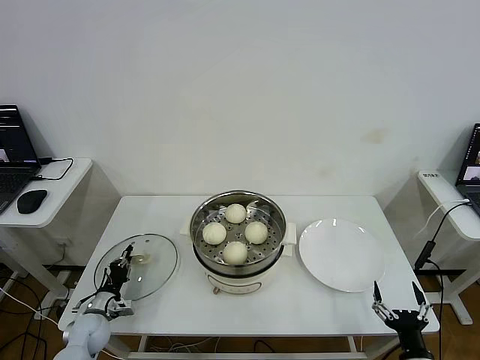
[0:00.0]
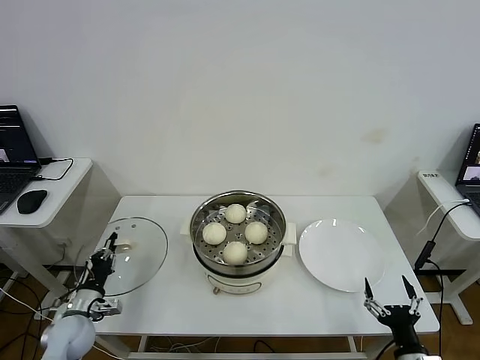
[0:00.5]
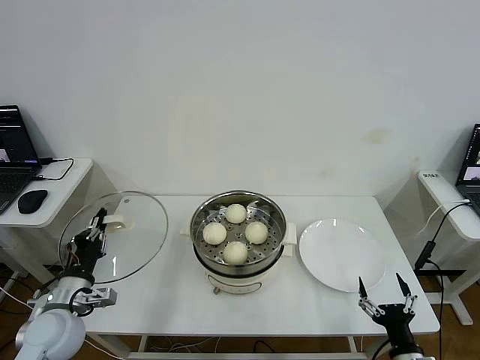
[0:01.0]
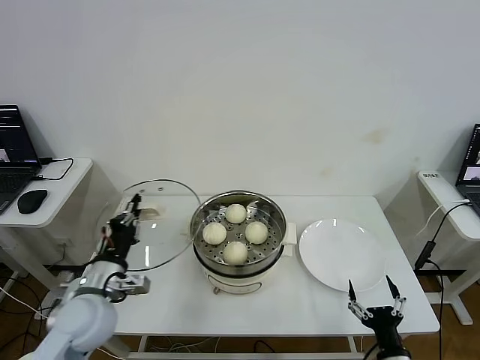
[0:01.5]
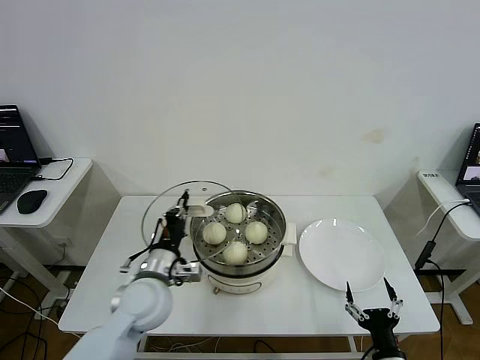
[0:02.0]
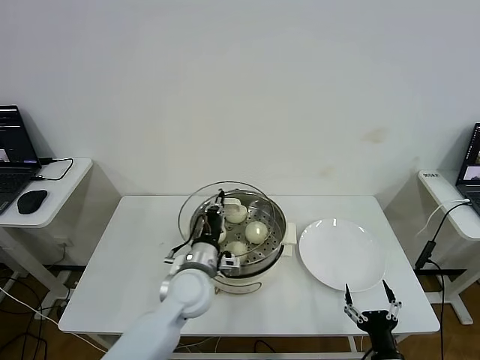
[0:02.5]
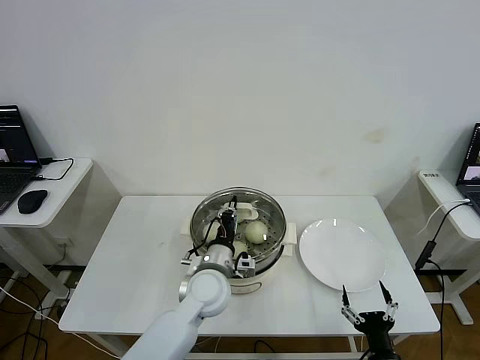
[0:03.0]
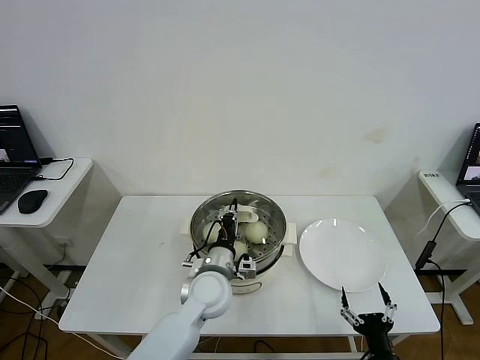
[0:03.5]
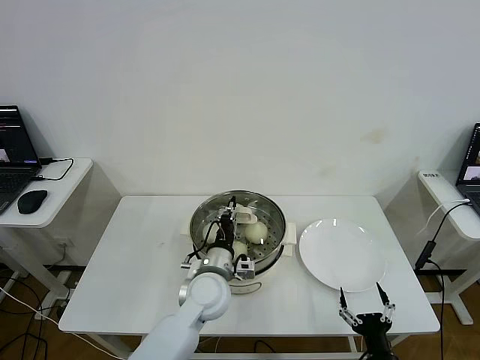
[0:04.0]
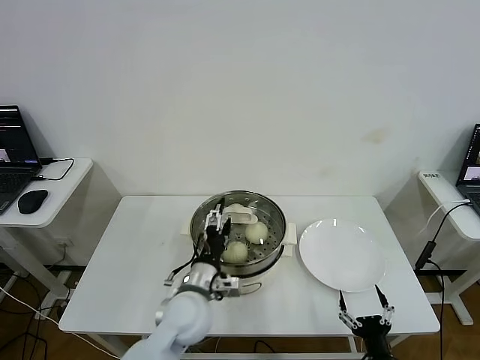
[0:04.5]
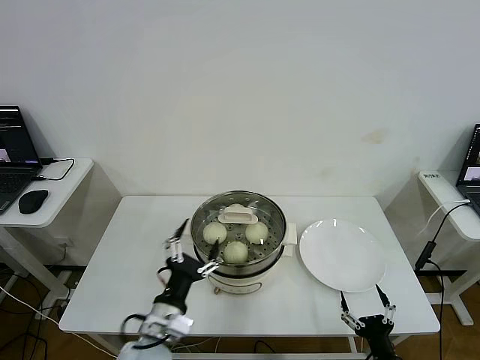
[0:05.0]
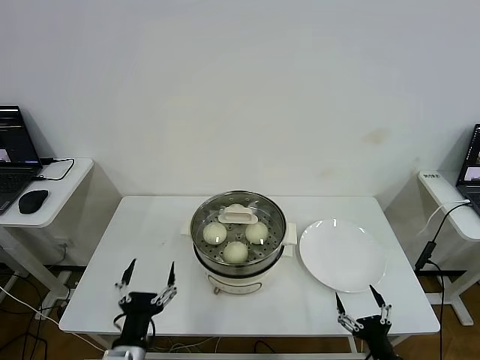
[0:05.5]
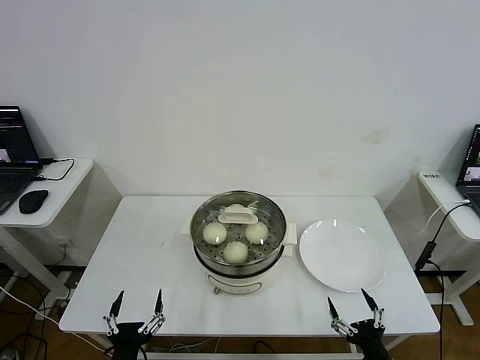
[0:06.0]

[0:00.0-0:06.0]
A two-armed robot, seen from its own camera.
Step, 0:00.0 to 0:04.5: Place the pot lid on the steamer with left gripper.
0:00.0 to 0:02.0: The left gripper is displaced upward and to the right by approximately 30 cm.
0:02.0 to 0:04.0: The left gripper heads to the right, covering some 10 cm.
0:04.0 to 0:06.0: The left gripper goes about 30 cm backward and to the left, and opens its fingers.

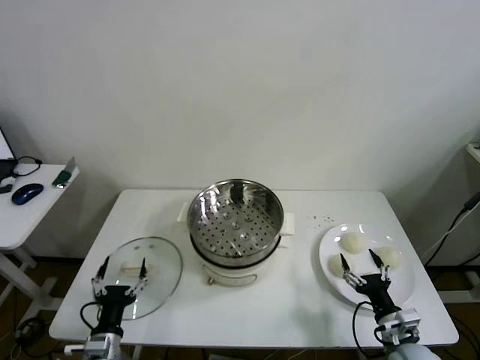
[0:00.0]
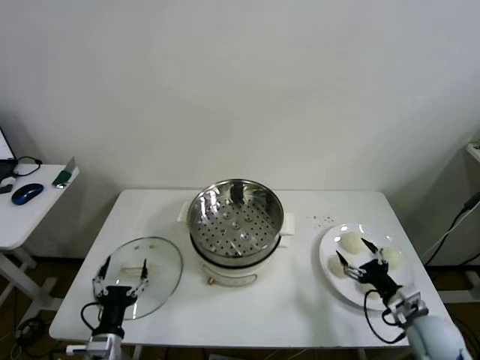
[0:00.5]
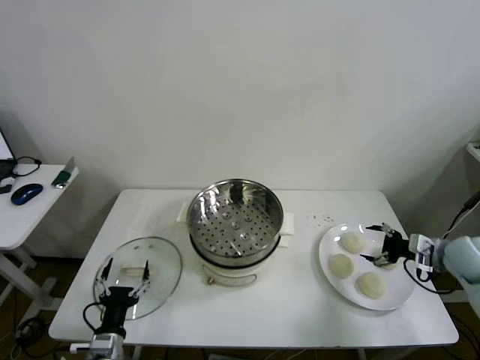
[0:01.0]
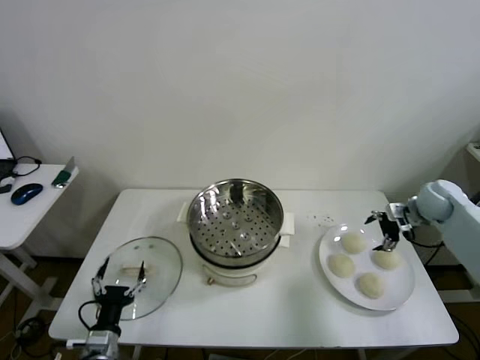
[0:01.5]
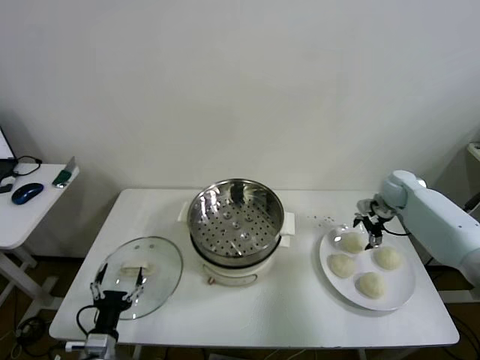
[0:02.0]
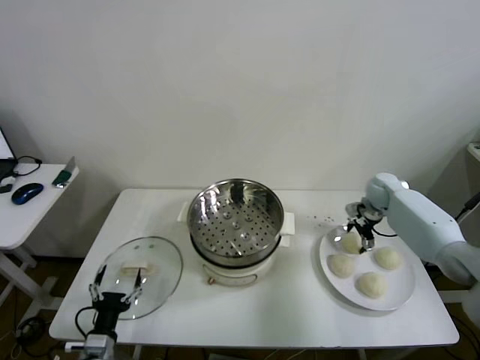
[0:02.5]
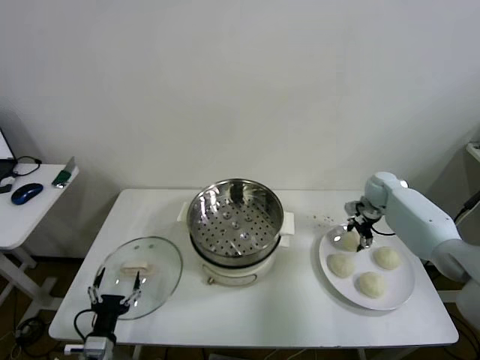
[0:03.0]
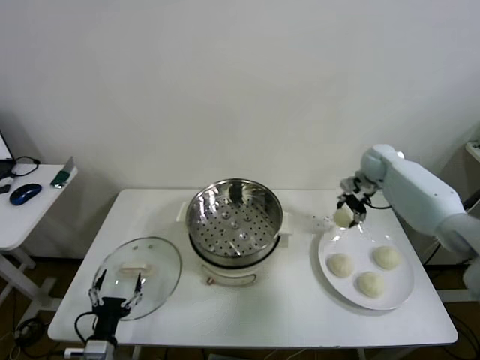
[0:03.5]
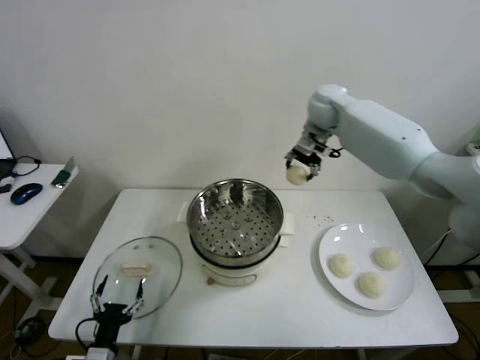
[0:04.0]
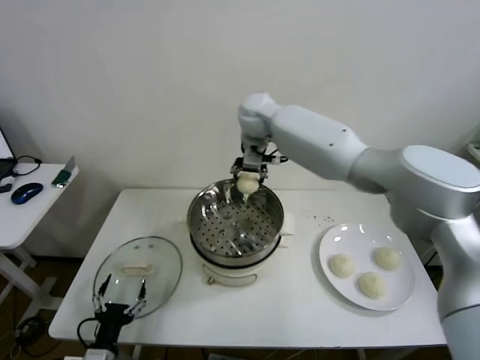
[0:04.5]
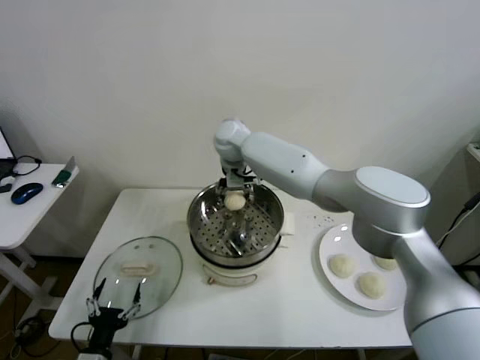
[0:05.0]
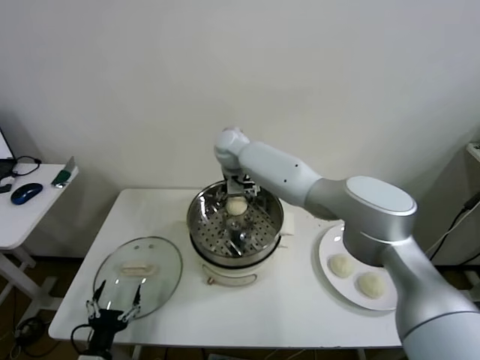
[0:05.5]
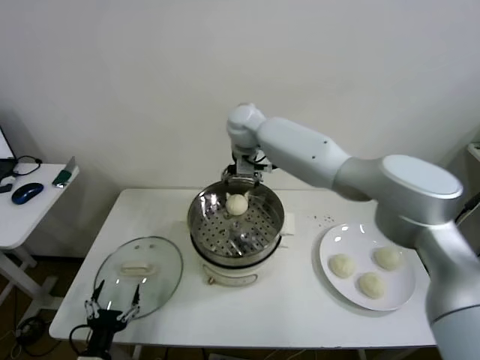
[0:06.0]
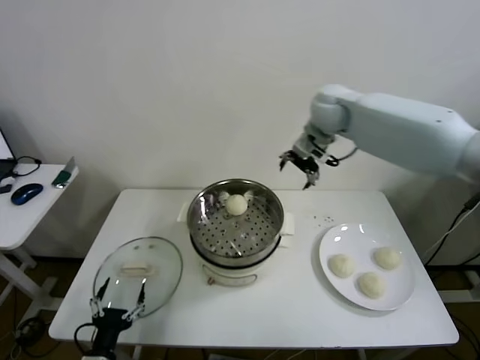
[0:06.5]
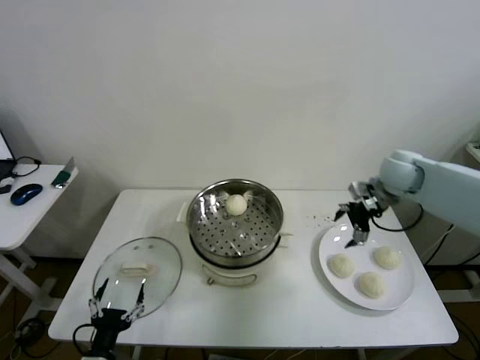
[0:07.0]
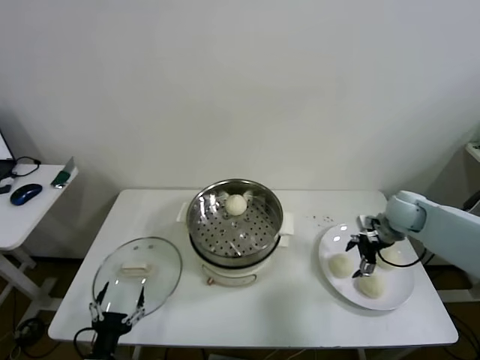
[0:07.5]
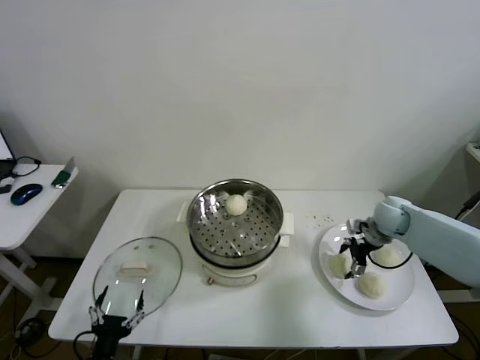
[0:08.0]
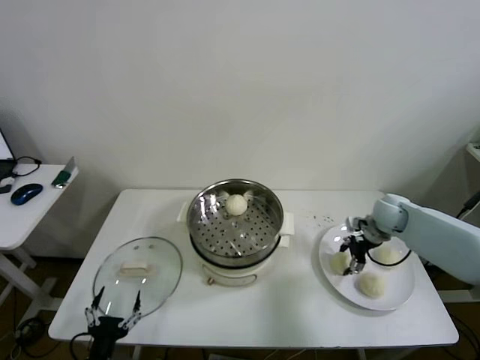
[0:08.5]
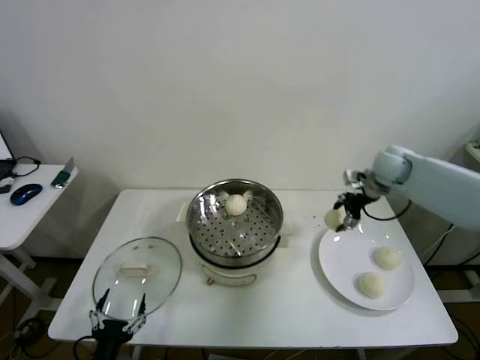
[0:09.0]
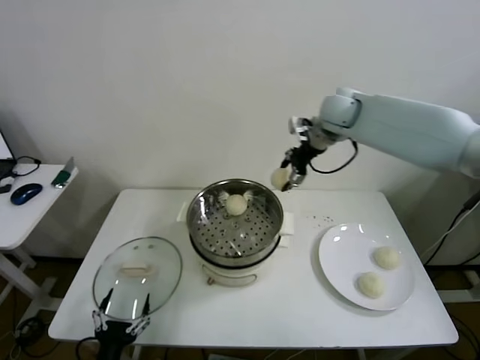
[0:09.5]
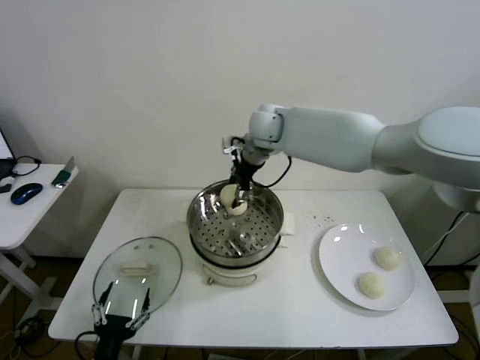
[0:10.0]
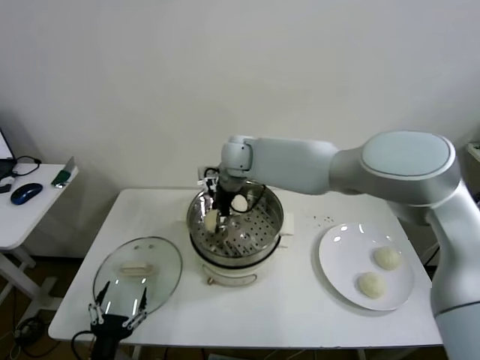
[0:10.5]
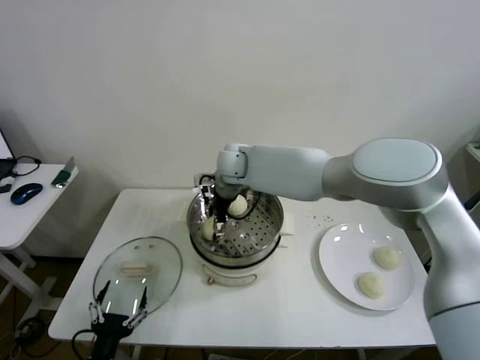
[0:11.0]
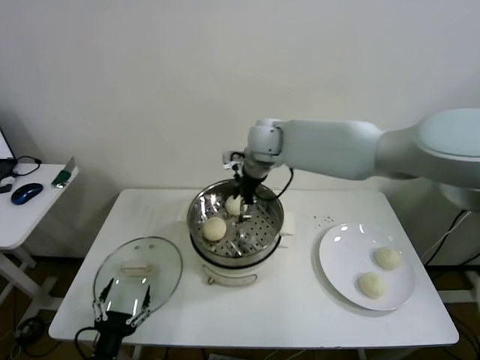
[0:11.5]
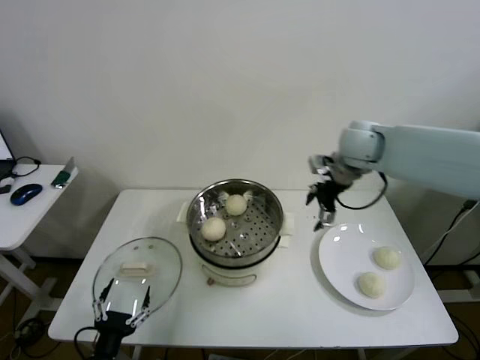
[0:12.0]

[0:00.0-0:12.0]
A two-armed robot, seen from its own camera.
Step, 0:00.0 to 0:02.5: Grasp the baozi in the plate with right gripper.
Step, 0:03.5 to 0:05.0: Place the baozi on the steamer with right gripper.
Step, 0:05.5 to 0:08.0: Grasp the baozi in the plate with right gripper.
Step, 0:08.5 to 0:10.5: Place the baozi on the steamer with right gripper.
0:02.0 to 0:04.0: The right gripper moves to the left and upward, about 35 cm, and closes.
0:04.0 to 0:06.0: The right gripper travels to the left by about 10 cm, and opens up.
0:06.0 to 0:08.0: The right gripper goes some 40 cm to the right and downward.
0:08.0 to 0:10.0: The right gripper travels to the left and upward by about 40 cm, and closes.
0:10.0 to 0:12.0: The right gripper heads to the right, covering some 25 cm, and opens.

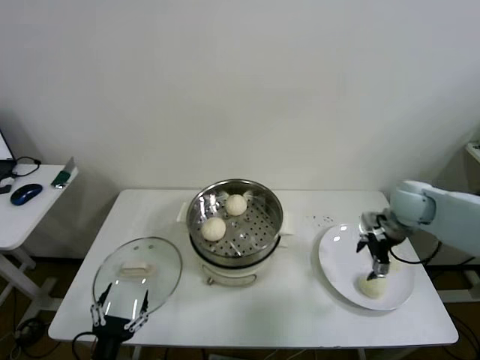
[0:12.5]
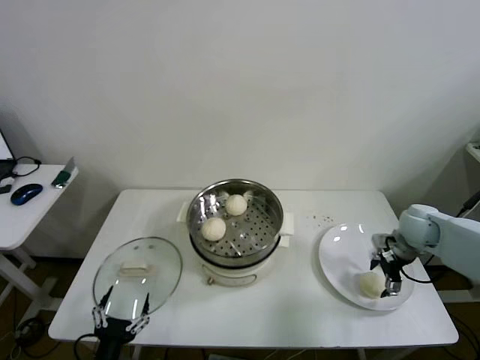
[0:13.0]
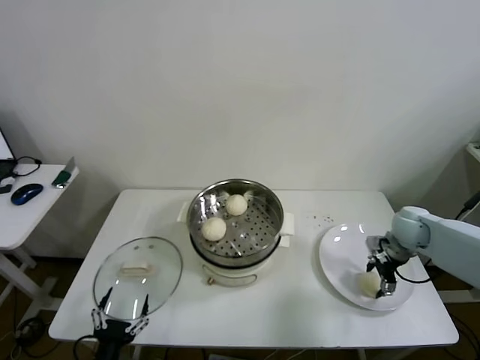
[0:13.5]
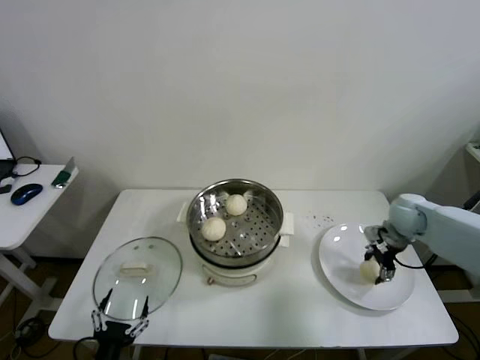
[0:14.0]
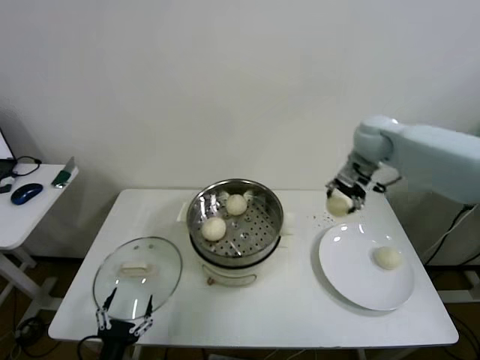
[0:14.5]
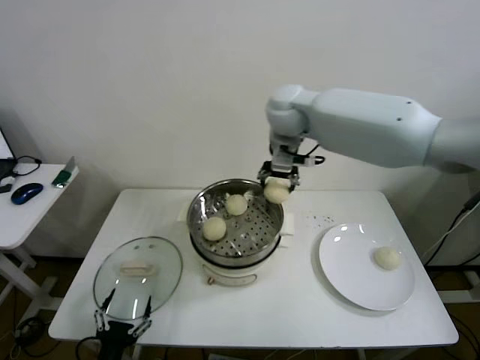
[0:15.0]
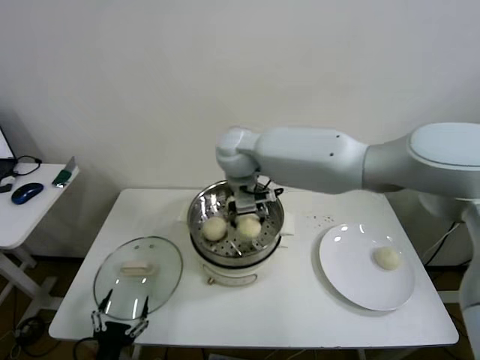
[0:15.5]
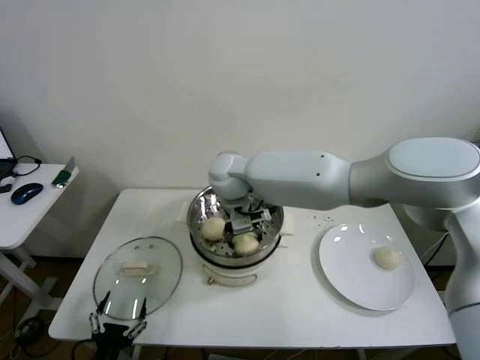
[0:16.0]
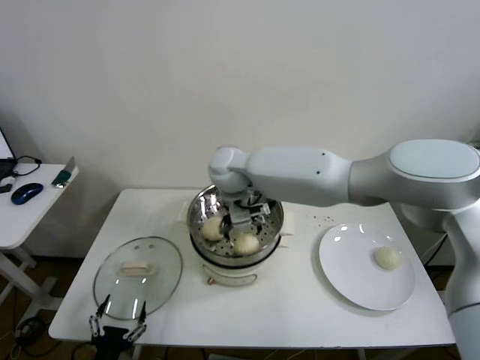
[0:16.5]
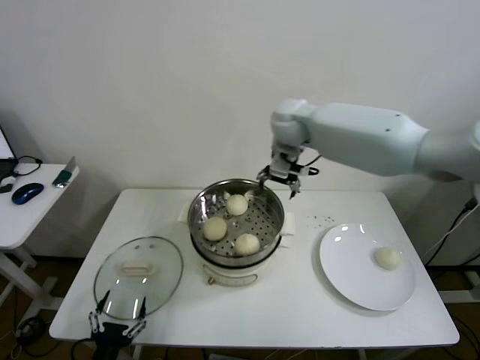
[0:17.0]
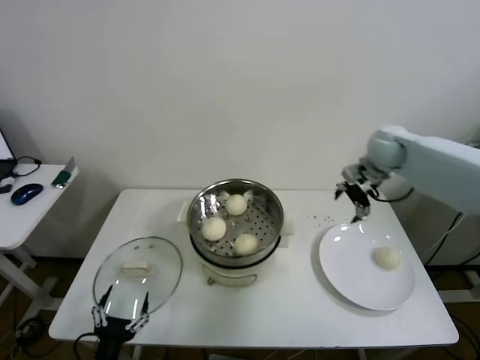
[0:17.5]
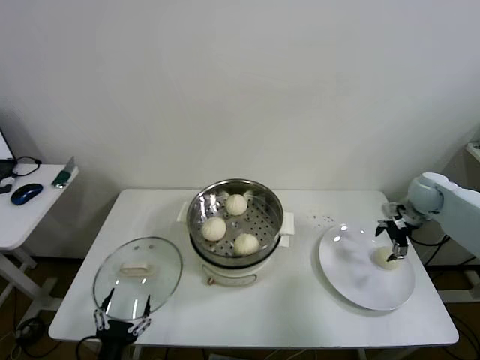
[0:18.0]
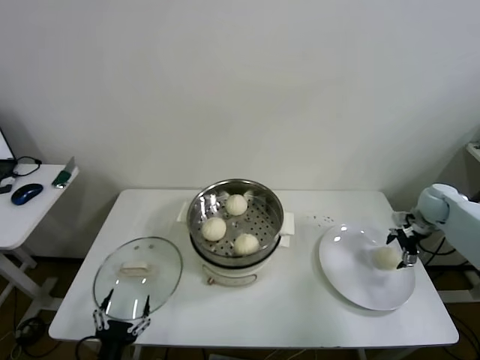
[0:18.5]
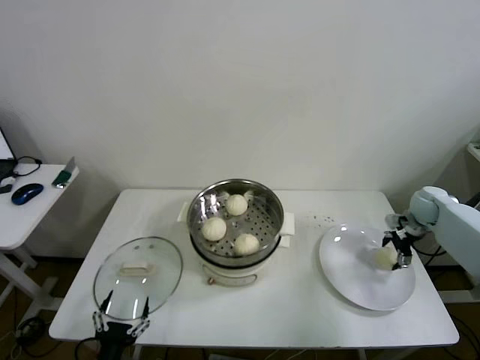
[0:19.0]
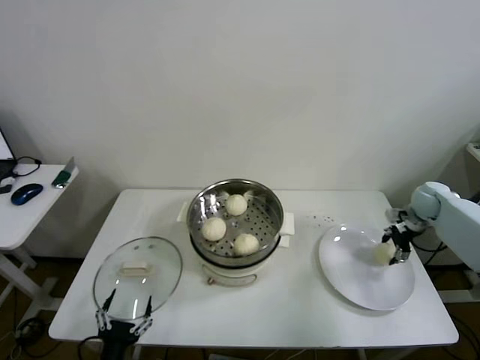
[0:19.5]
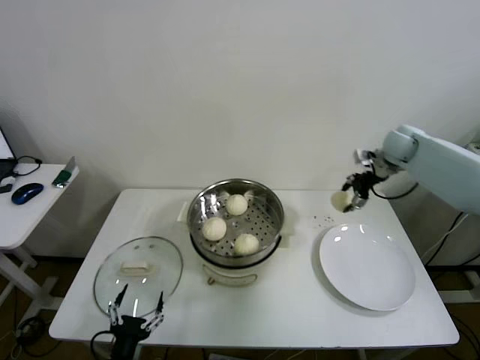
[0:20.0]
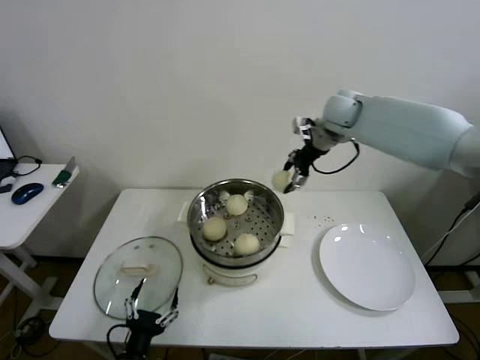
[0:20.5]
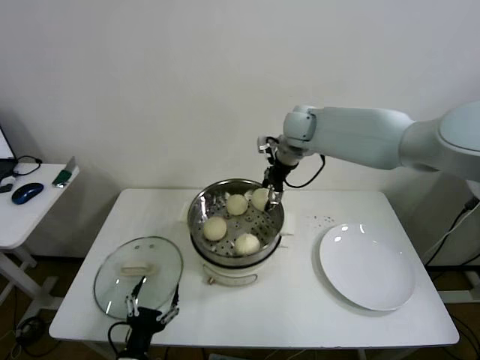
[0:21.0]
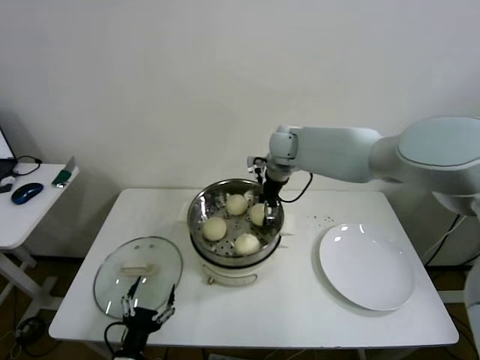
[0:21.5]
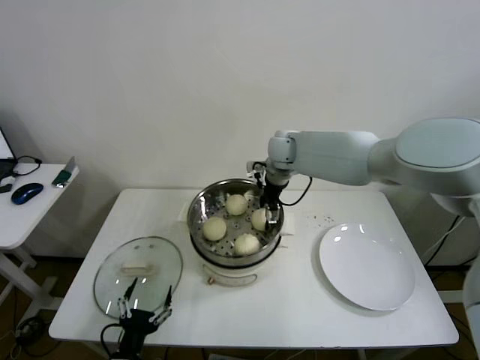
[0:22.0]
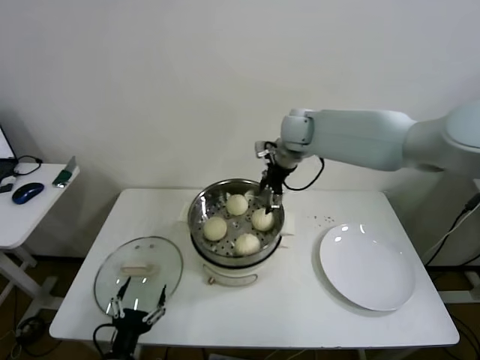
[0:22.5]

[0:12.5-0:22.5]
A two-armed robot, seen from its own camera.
Step, 0:14.0 to 0:16.0: Place the baozi on the steamer with right gripper.
Step, 0:16.5 to 0:19.0: Grasp the baozi in the plate with right gripper.
Step, 0:19.5 to 0:21.5: Place the baozi on the steamer with right gripper.
0:12.5 to 0:14.5: The right gripper heads upward, to the left and forward, covering approximately 20 cm, and closes up.
0:14.5 to 0:16.5: The right gripper is displaced to the left by about 30 cm, and opens up.
0:16.5 to 0:18.5: The right gripper heads to the right, covering approximately 50 cm.
0:18.5 to 0:20.5: The right gripper goes roughly 35 cm to the left and upward, and closes up.
0:20.5 to 0:22.5: The right gripper travels to the left by about 10 cm, and opens.
